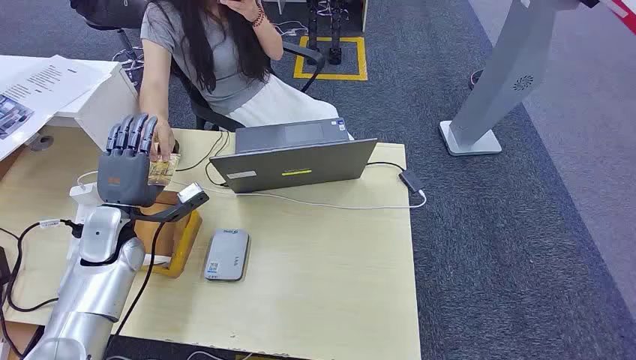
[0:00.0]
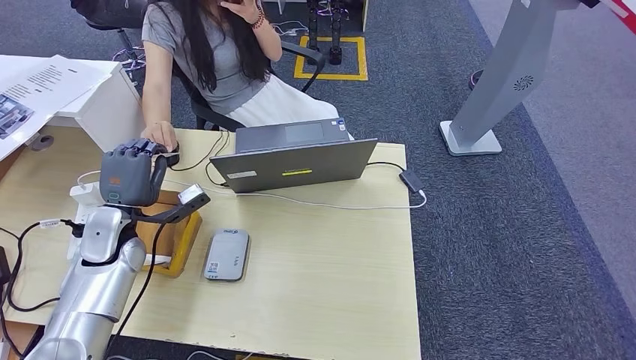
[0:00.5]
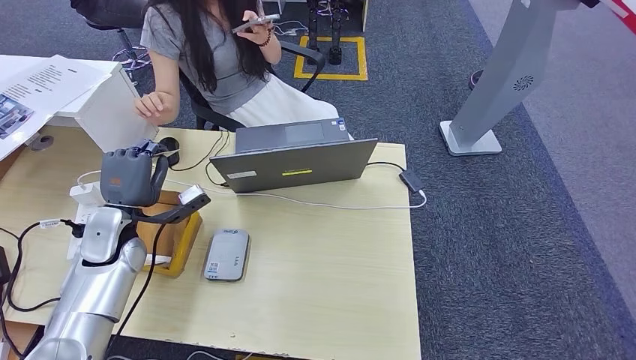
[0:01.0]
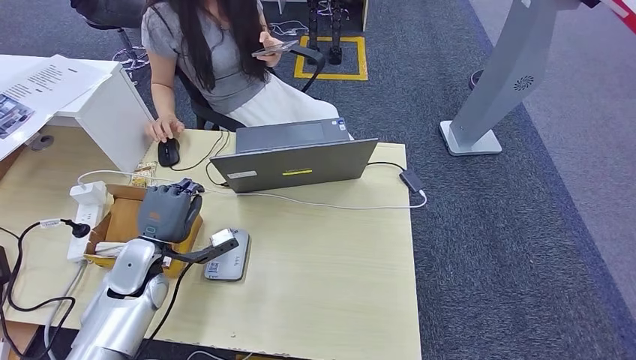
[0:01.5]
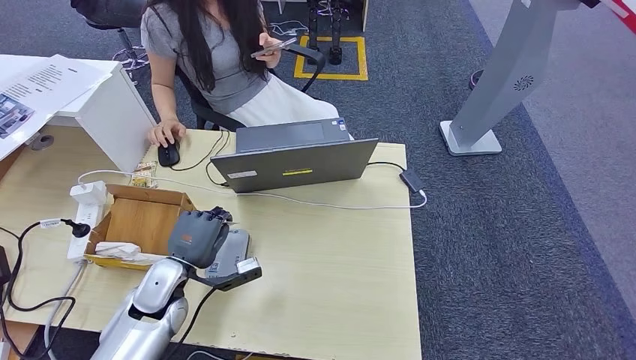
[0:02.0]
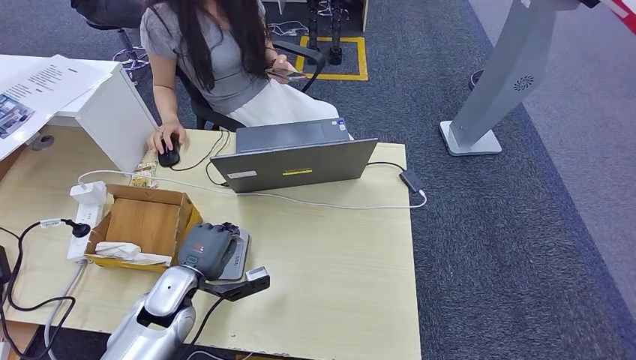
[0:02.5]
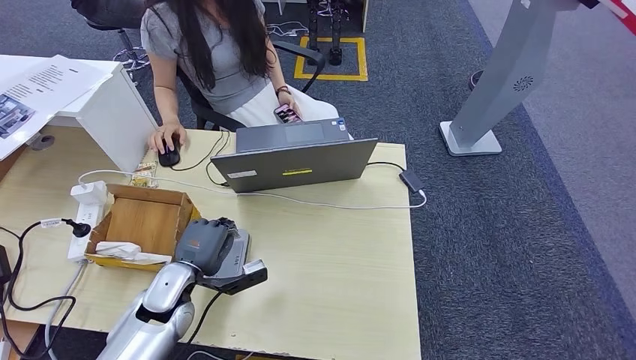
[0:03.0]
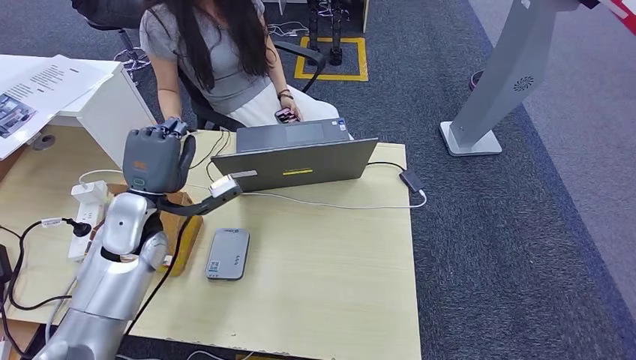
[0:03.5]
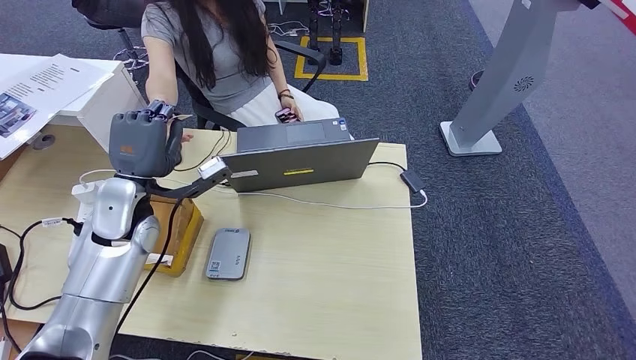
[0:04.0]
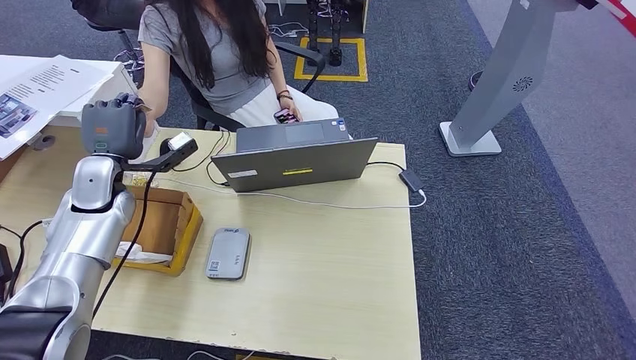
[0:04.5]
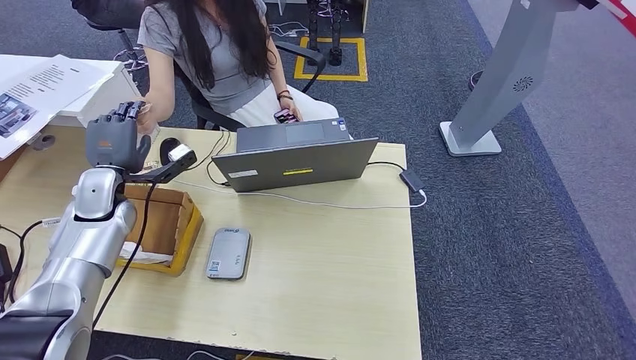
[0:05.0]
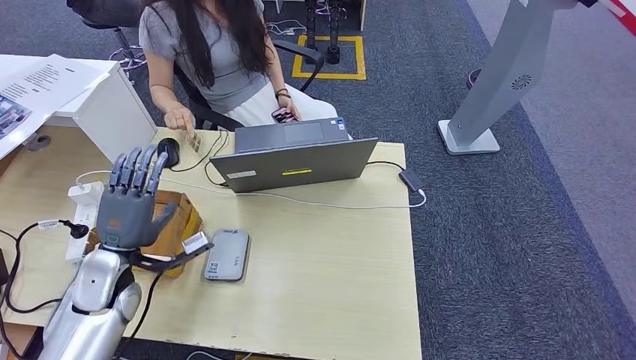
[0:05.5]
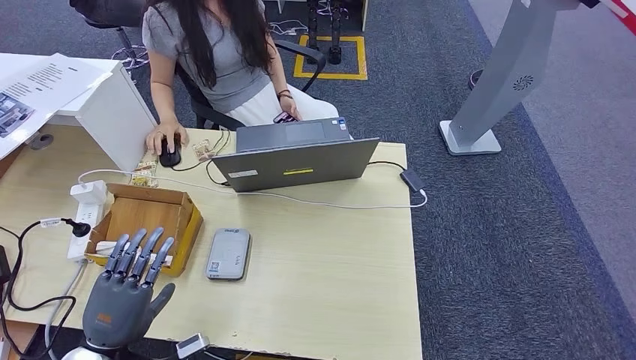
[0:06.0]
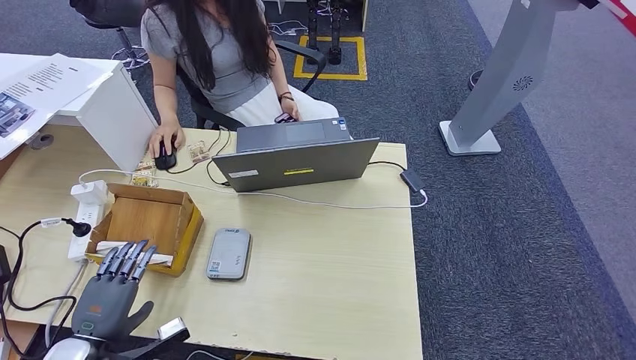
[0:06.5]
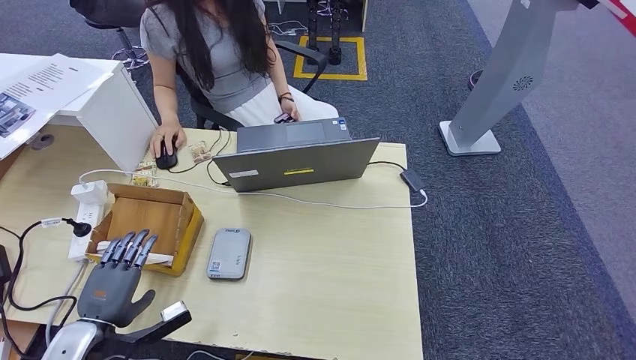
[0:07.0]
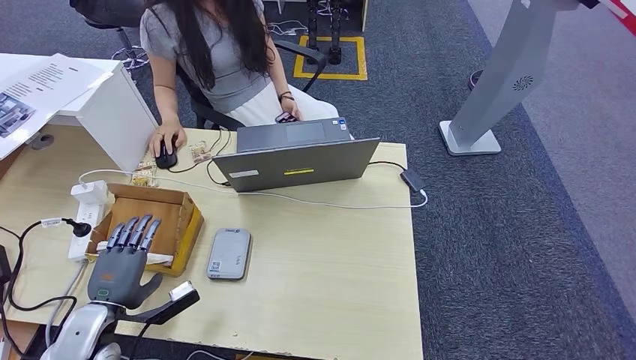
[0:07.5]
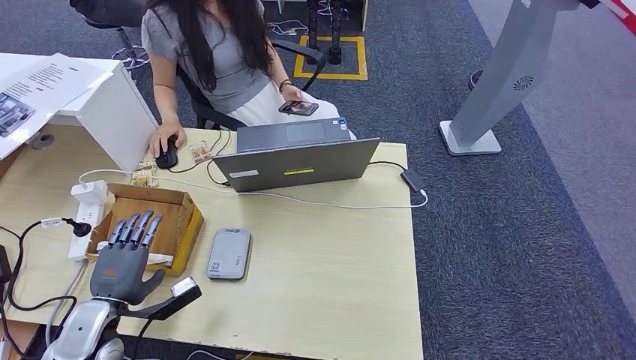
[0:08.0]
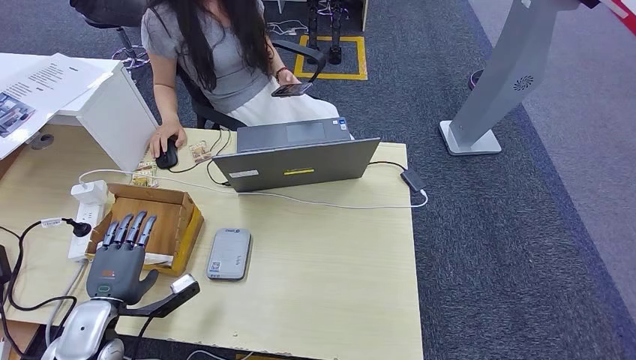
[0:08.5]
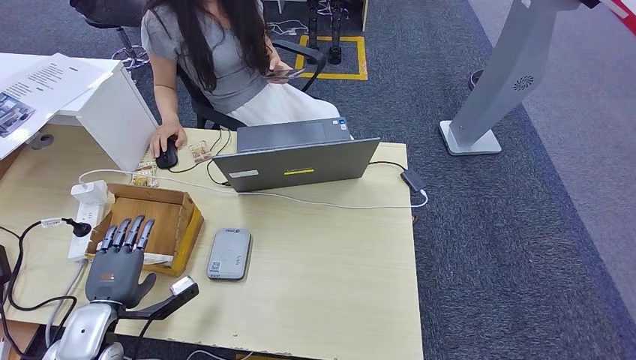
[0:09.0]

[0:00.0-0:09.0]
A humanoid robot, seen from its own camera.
Step, 0:00.0 to 0:01.5: Take the ID card from the person's hand.
Step, 0:02.0 to 0:03.0: Place the ID card on the card reader.
Step, 0:04.0 to 0:05.0: Hand the ID card to the person.
0:02.0 to 0:04.5: The left hand heads forward, upward and to the left, covering some 20 cm.
0:04.5 to 0:07.0: The left hand moves backward and downward, about 30 cm.
0:07.0 to 0:09.0: There are only small adjustments of the hands.

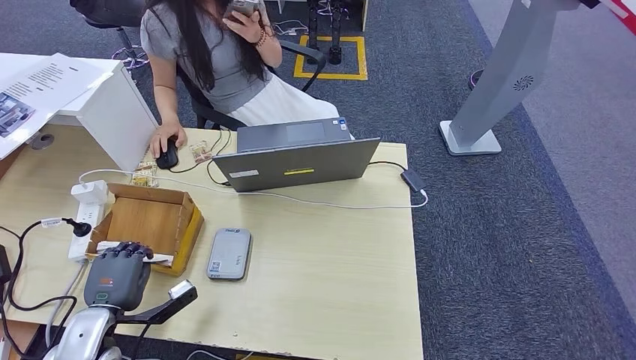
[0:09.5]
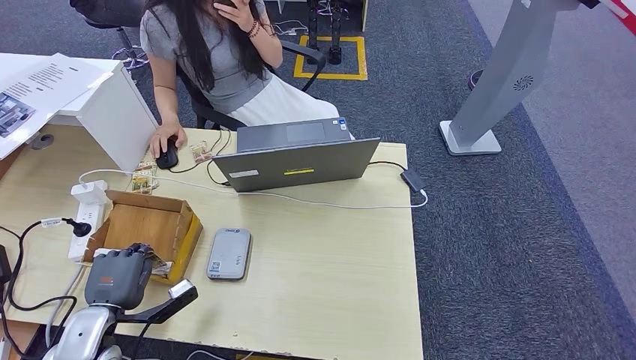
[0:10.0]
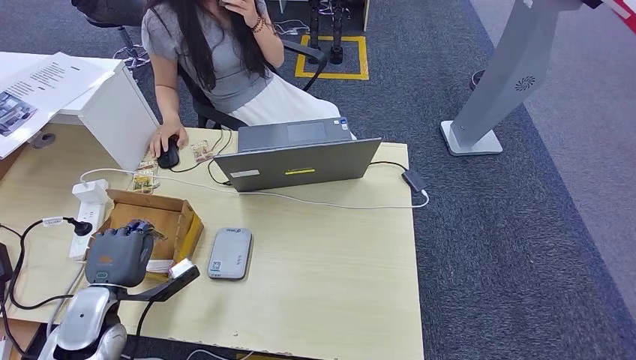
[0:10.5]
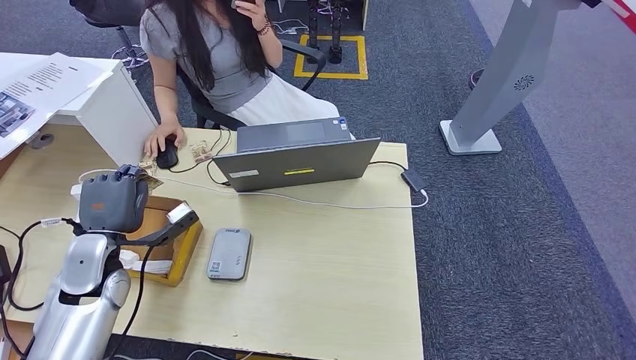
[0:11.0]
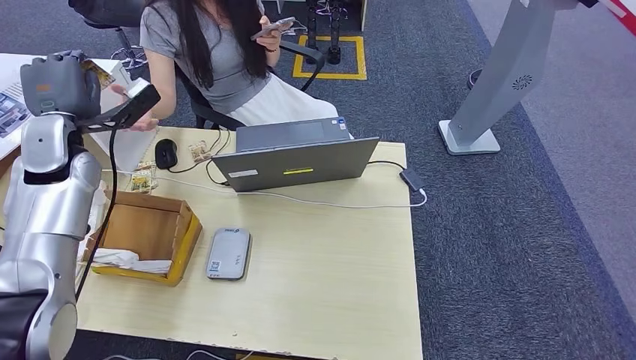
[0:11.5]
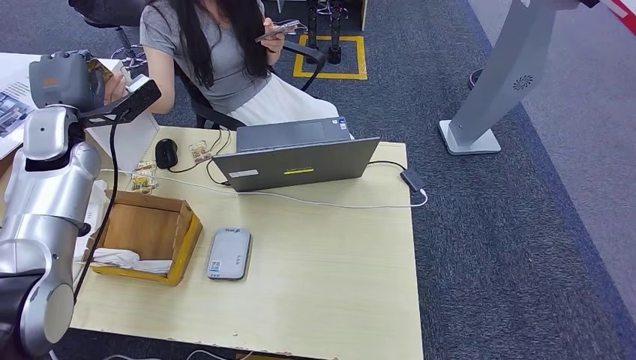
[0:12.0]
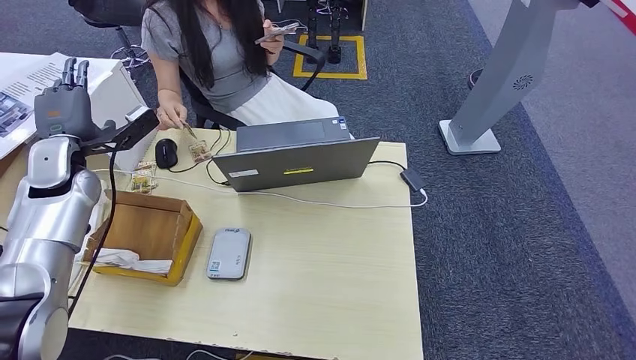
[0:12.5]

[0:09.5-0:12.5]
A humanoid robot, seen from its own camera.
Step, 0:09.5 to 0:10.5: Pick up the room key from the key card box.
Step, 0:11.0 to 0:12.5: Hand the room key to the person.
0:09.5 to 0:11.0: The left hand heads forward and upward, covering roughly 15 cm.
0:11.0 to 0:12.5: The left hand moves forward, upward and to the left, roughly 20 cm.
